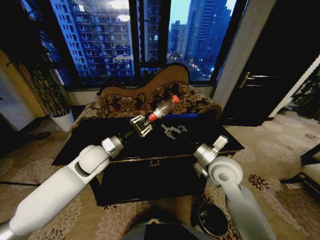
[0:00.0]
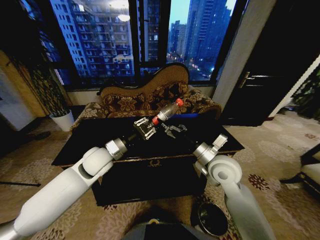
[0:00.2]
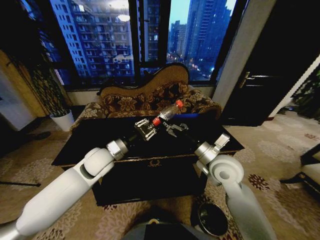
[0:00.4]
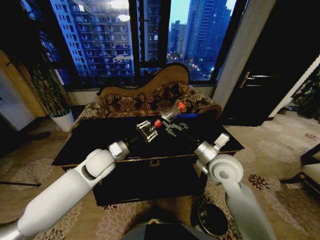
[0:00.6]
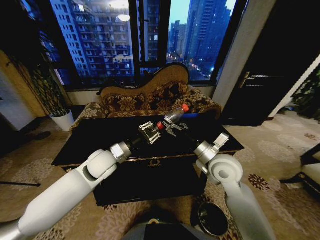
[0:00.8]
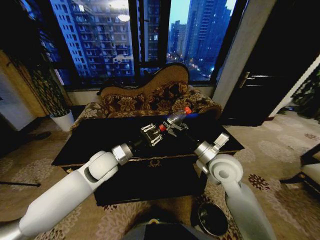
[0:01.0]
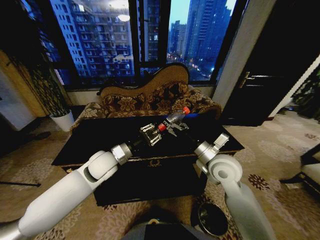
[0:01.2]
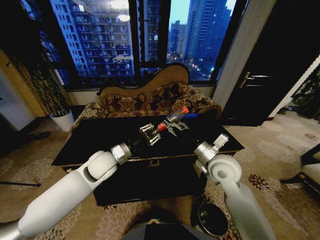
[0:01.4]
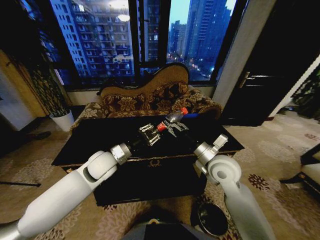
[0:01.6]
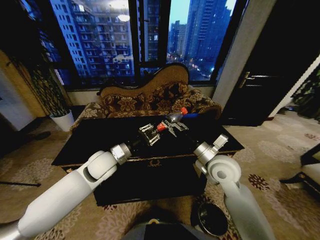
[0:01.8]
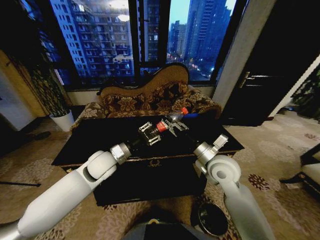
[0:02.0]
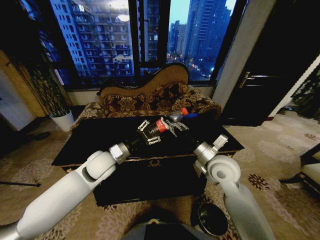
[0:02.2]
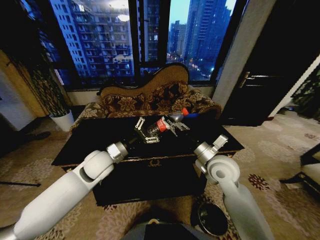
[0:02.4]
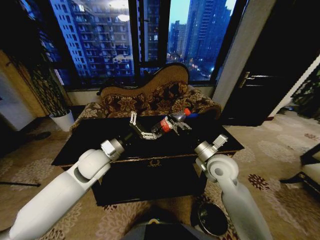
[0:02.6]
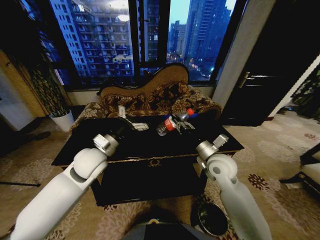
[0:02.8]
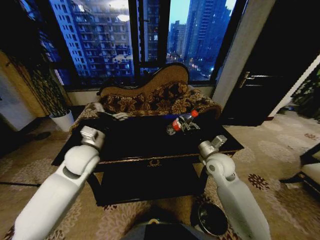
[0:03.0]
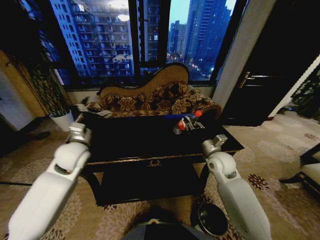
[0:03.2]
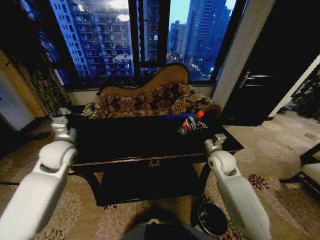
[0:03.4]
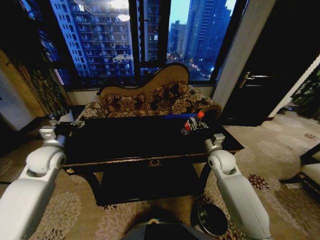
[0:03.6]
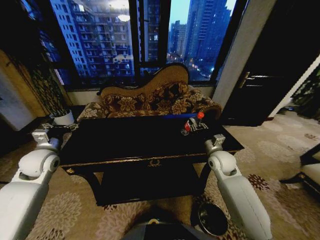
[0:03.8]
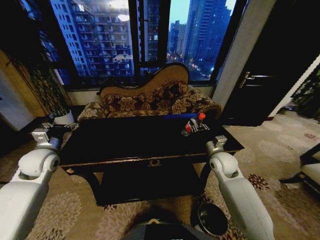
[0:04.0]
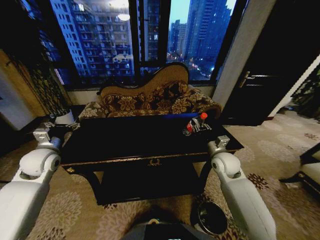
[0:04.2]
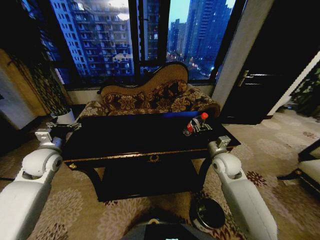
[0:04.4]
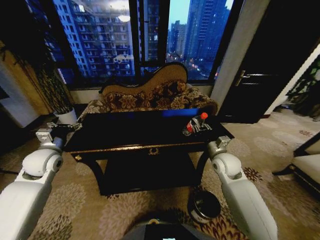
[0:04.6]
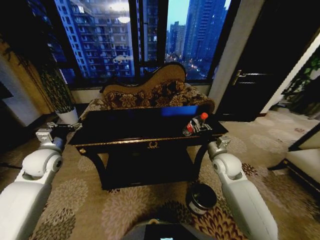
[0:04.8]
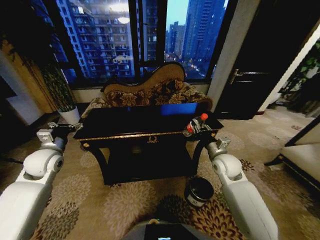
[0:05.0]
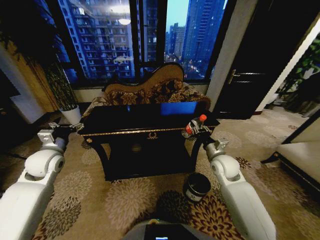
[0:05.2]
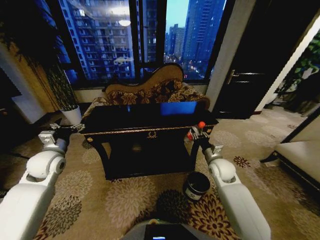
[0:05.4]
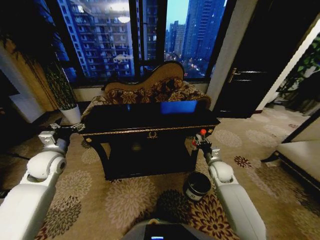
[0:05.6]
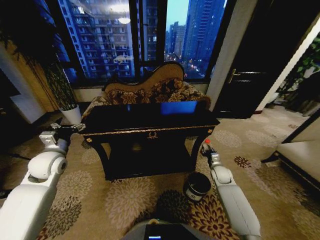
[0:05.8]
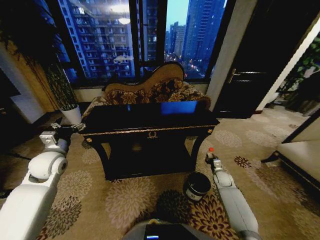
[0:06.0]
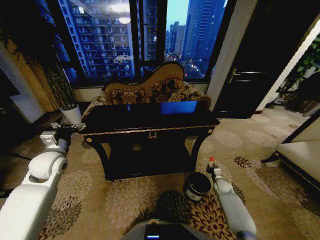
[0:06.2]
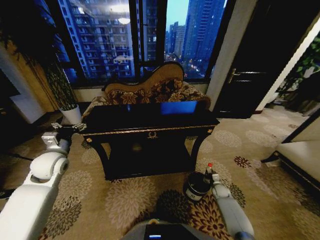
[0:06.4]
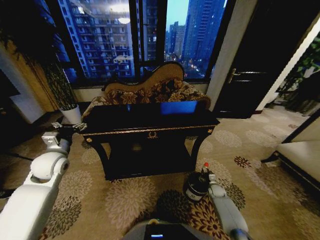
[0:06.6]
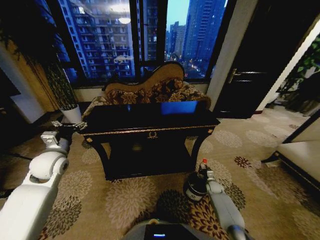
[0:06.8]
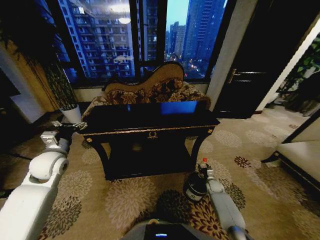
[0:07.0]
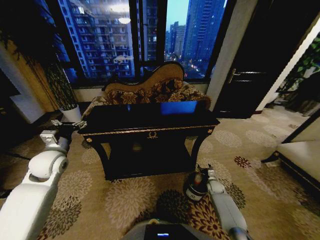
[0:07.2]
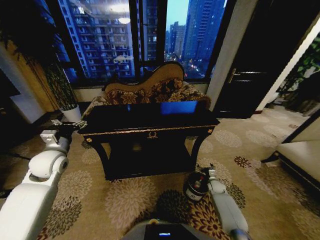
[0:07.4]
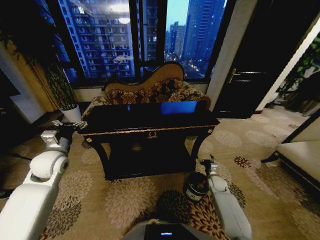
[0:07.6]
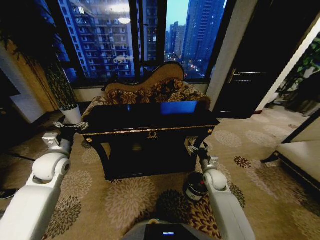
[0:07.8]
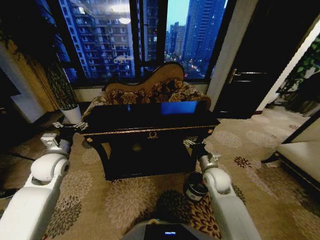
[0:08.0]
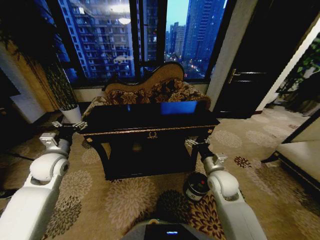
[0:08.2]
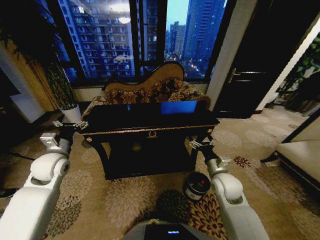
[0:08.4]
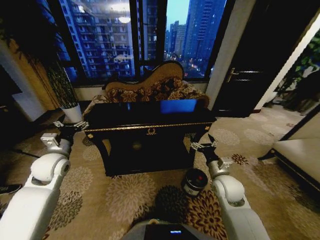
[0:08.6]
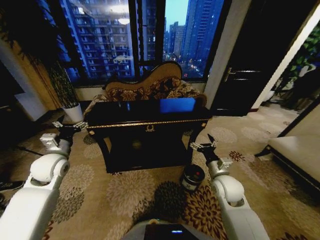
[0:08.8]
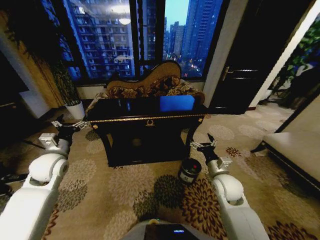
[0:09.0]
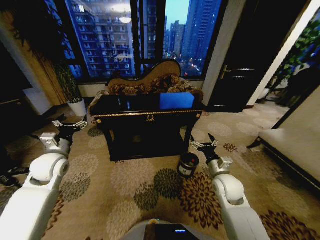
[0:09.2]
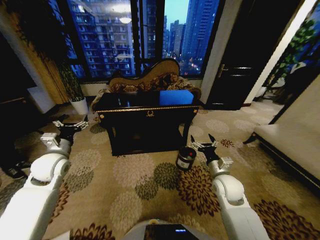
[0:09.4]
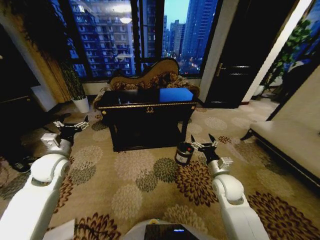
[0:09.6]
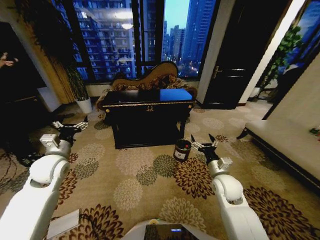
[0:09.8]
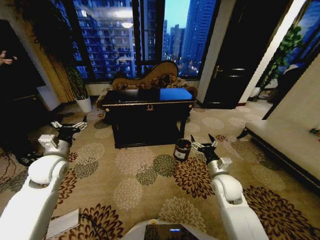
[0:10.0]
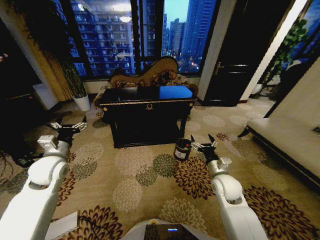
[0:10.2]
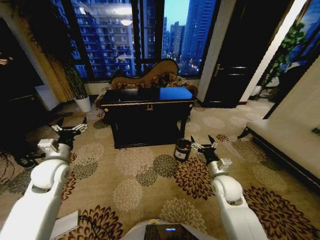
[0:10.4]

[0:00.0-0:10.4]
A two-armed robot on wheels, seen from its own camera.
Task of the whole recording: Move to the front of the table and place the trash on the table into the trash bin.
0:00.0 to 0:01.4: The grippers make only small movements.
0:01.4 to 0:03.0: The left gripper moves to the left, approximately 5 cm, and opens up. The right gripper heads downward, covering some 5 cm, and closes.
0:03.0 to 0:04.4: The right gripper shifts by some 5 cm; the left gripper travels to the left by some 15 cm.
0:04.4 to 0:06.0: The right gripper travels downward and to the right by roughly 25 cm.
0:06.0 to 0:07.4: The right gripper travels downward by roughly 10 cm, and opens.
0:07.4 to 0:09.0: The right gripper shifts about 30 cm upward and to the left.
